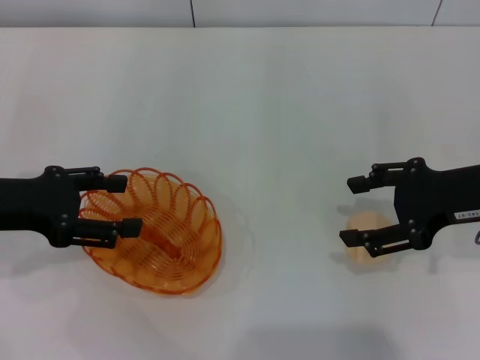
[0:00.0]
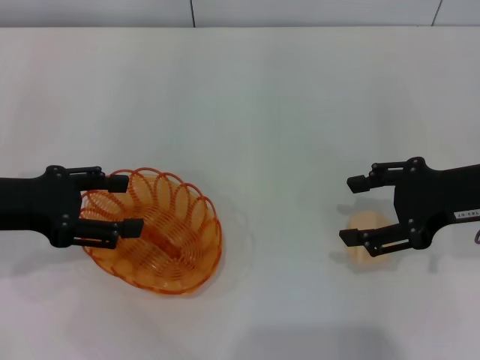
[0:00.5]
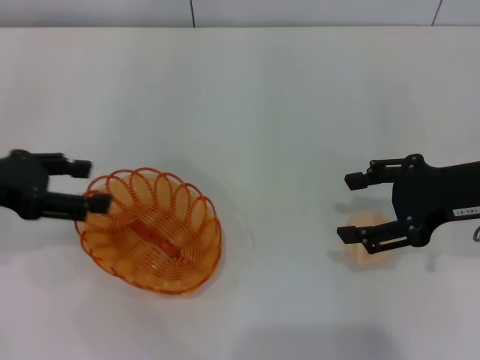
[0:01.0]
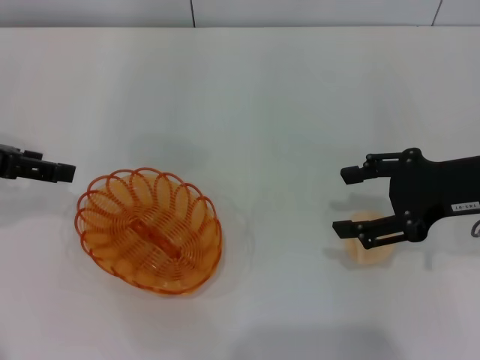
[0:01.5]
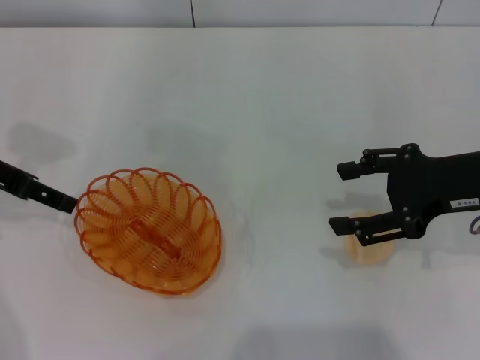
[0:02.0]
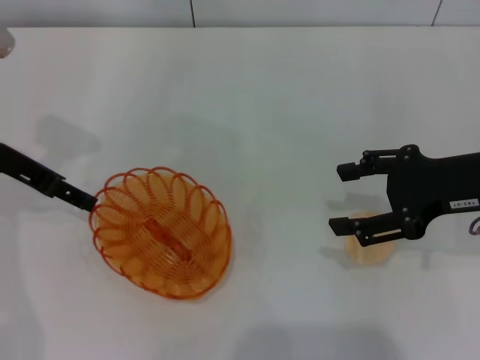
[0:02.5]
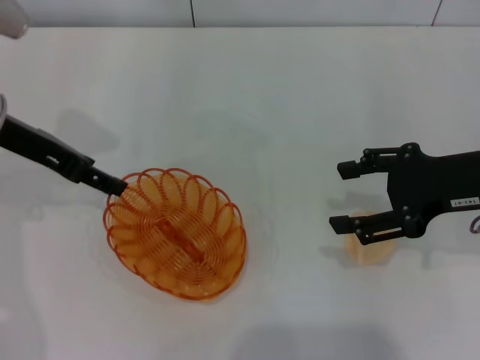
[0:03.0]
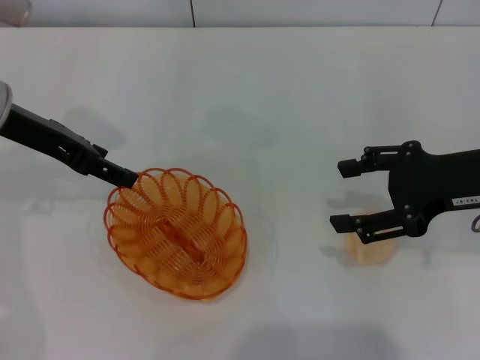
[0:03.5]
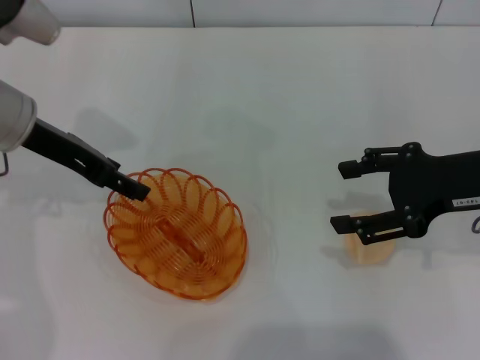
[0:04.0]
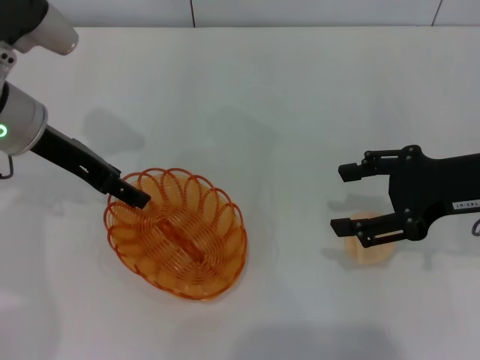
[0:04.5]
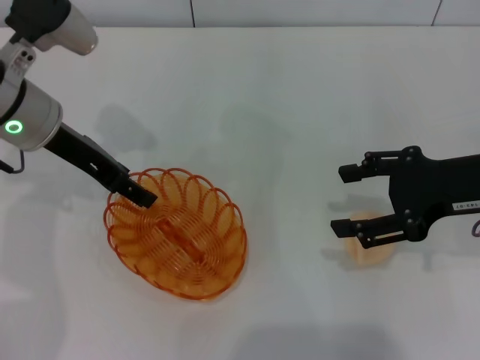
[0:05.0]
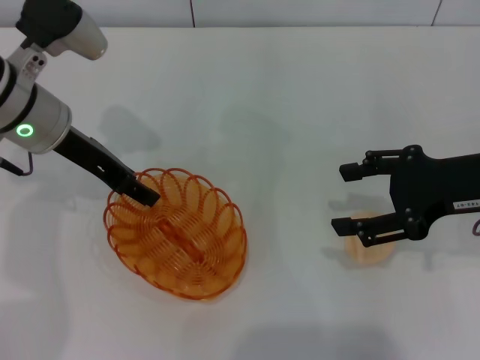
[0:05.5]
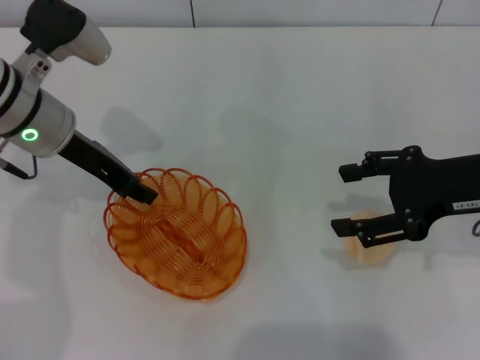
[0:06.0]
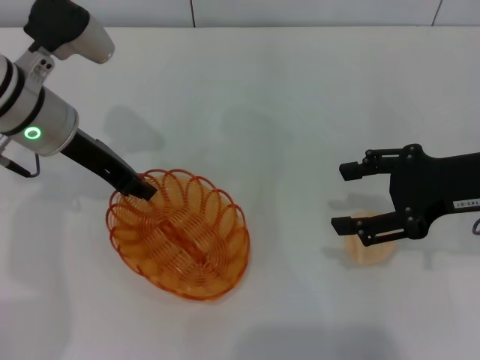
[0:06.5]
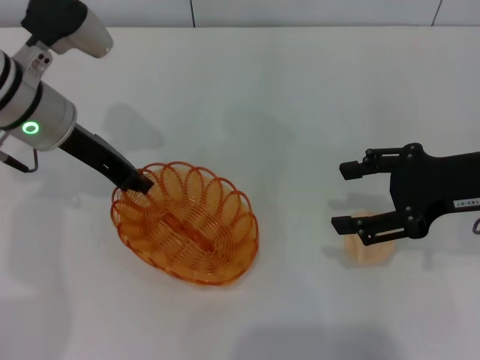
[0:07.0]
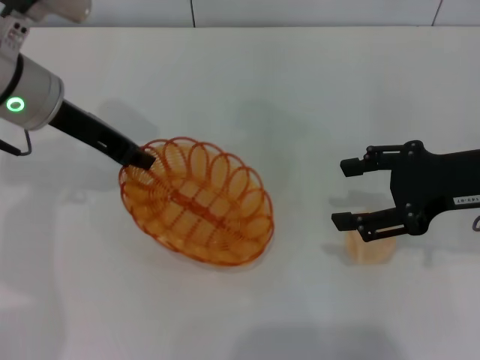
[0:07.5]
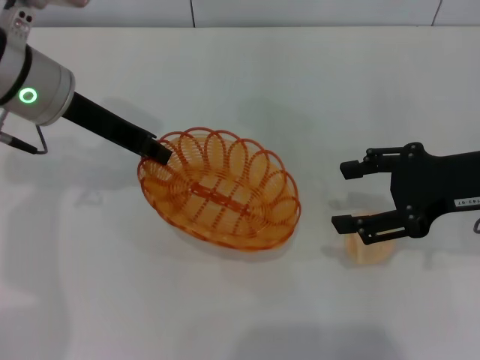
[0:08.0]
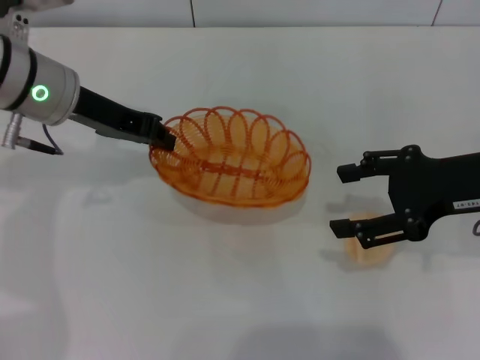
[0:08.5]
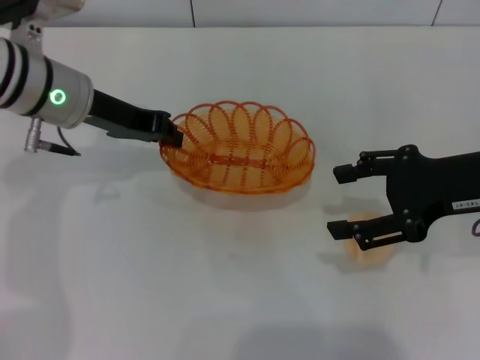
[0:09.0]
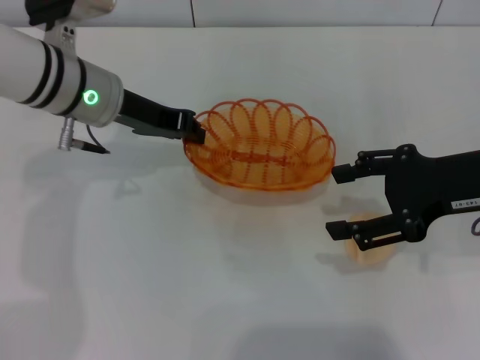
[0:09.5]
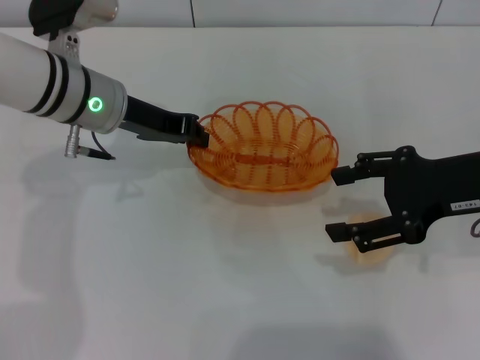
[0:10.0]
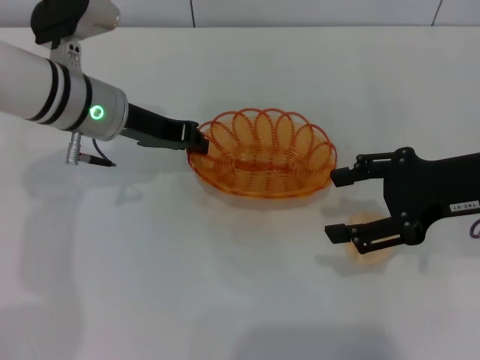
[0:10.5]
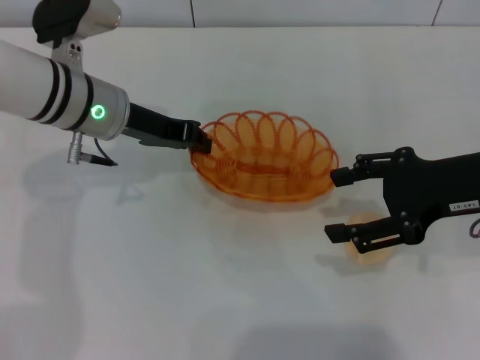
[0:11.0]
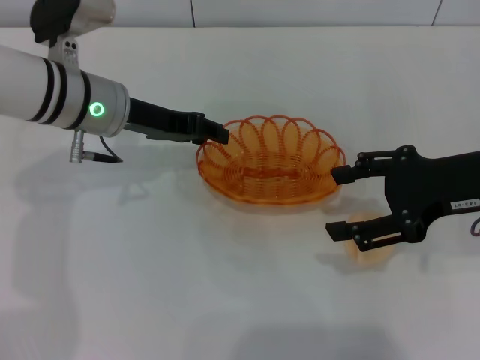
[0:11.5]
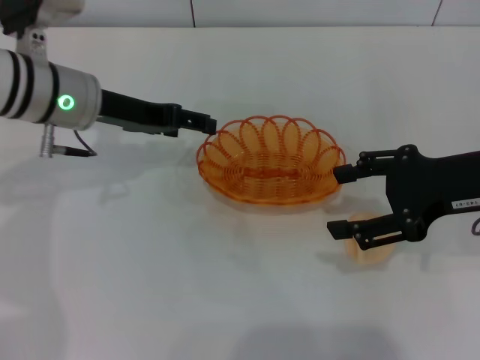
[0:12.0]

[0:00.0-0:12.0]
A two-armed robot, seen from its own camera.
Step, 0:00.0 to 0:06.0: Pick up the basket with the left gripper.
Step, 0:06.5 to 0:11.5: Place the basket in the center of view with the left gripper.
0:00.0 to 0:02.0: The left gripper moves forward, roughly 5 cm.
0:02.0 to 0:04.0: The left gripper goes about 5 cm to the right.
0:04.0 to 0:06.0: The left gripper closes its fingers.
0:06.0 to 0:08.0: The left gripper closes up.
0:08.0 to 0:10.0: The left gripper heads downward, covering some 5 cm.
0:10.0 to 0:12.0: The left gripper opens.

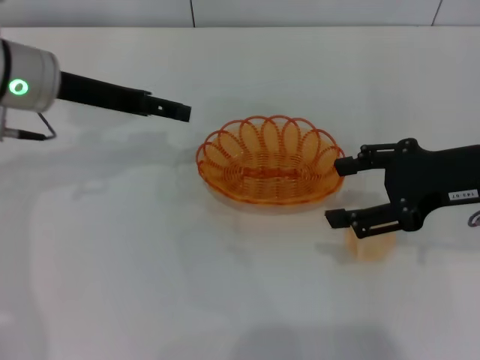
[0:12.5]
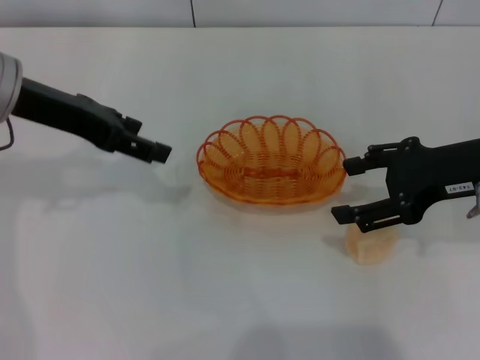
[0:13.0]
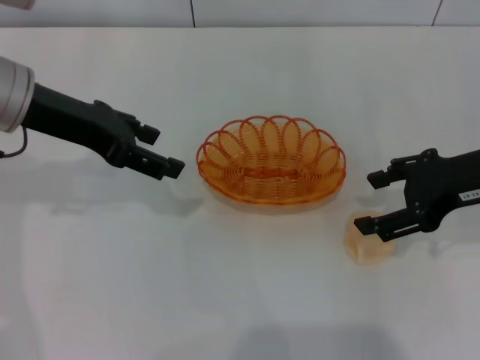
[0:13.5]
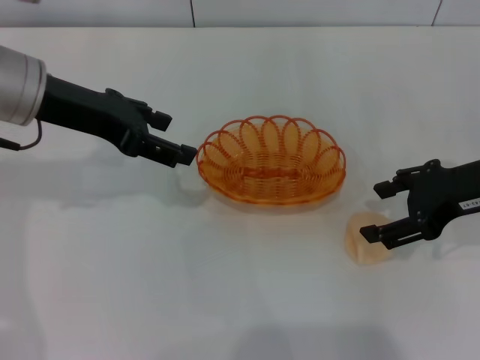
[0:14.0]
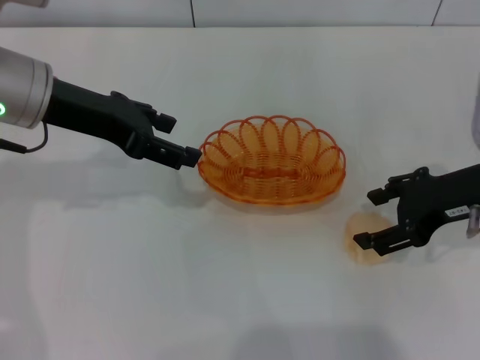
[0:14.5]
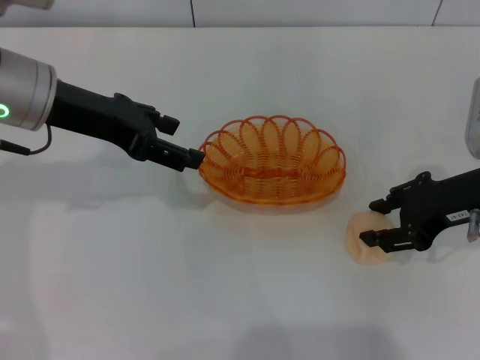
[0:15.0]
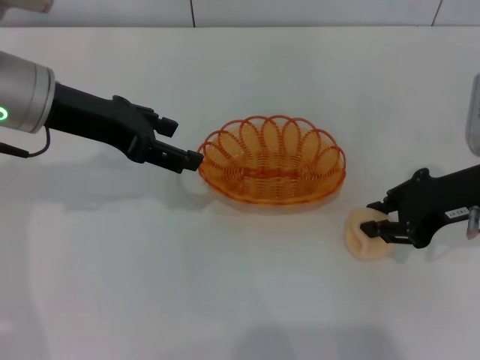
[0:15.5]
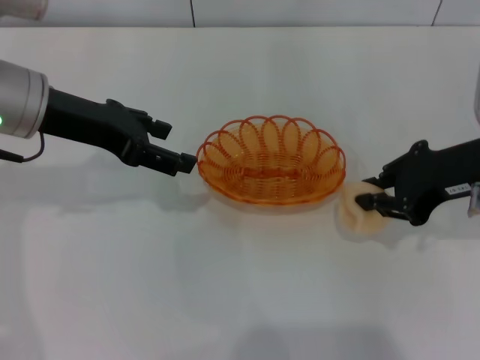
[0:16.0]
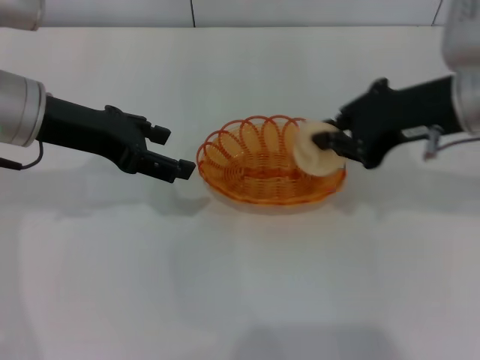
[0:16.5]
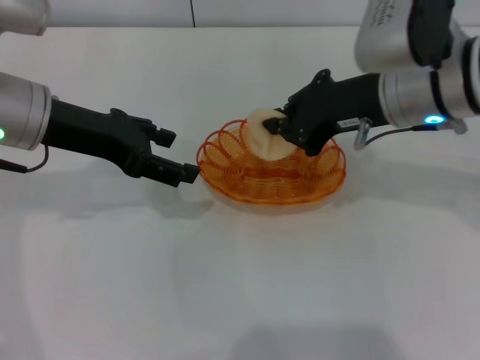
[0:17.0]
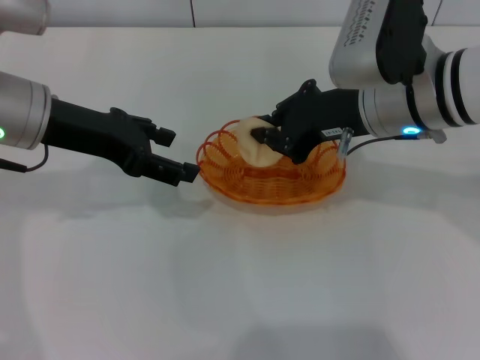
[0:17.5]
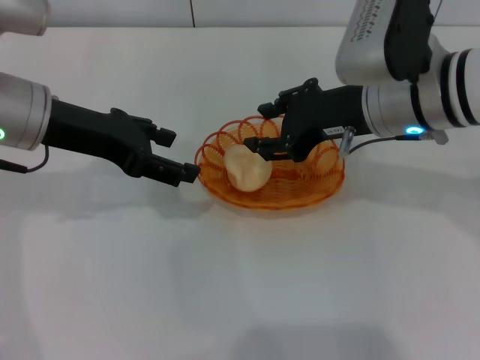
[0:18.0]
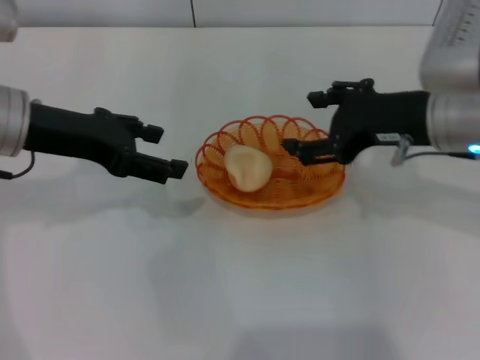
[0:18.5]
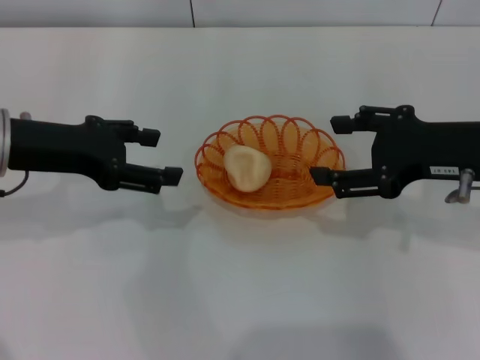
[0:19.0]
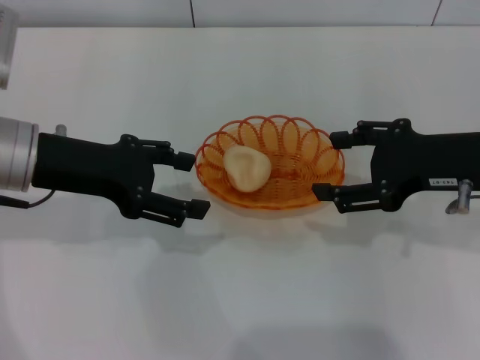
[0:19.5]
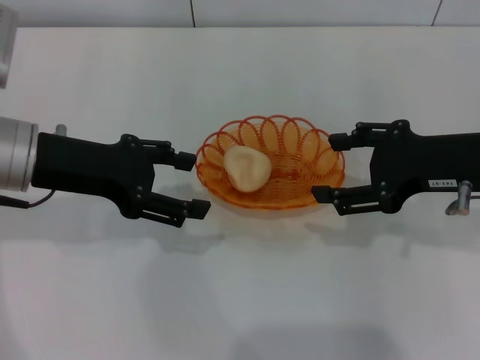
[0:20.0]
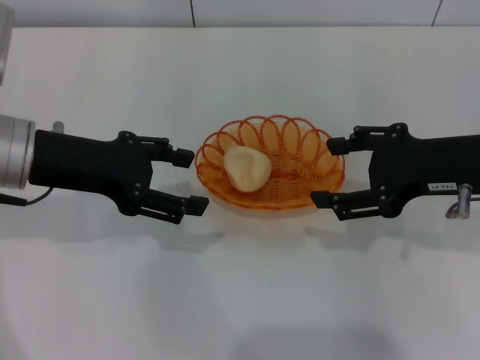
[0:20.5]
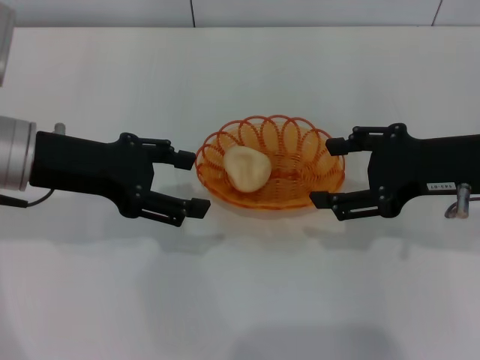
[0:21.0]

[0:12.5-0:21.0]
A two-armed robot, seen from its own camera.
Step, 0:12.5 to 0:16.0: Pick up the egg yolk pastry with the right gripper.
Step, 0:16.5 to 0:19.5: Place the egg yolk pastry into the basket with the right gripper.
0:14.5 to 0:16.5: The right gripper goes some 10 cm upward and to the left, and closes up.
0:16.5 to 0:19.0: The right gripper ends up approximately 5 cm from where it was, and opens its fingers.
0:19.0 to 0:21.0: The grippers move only a little.

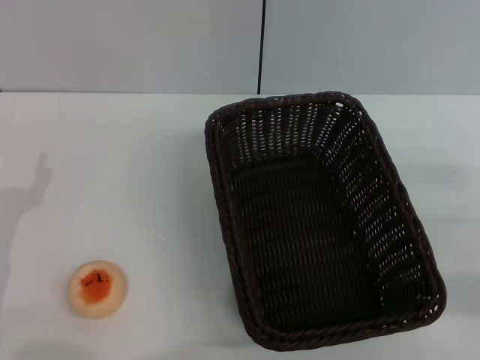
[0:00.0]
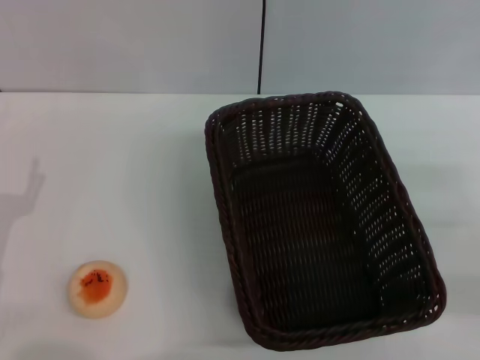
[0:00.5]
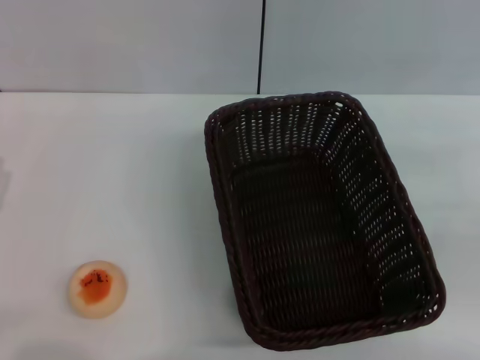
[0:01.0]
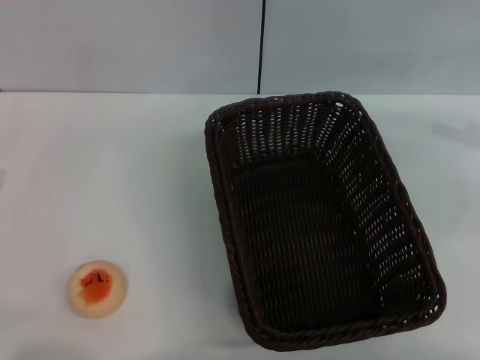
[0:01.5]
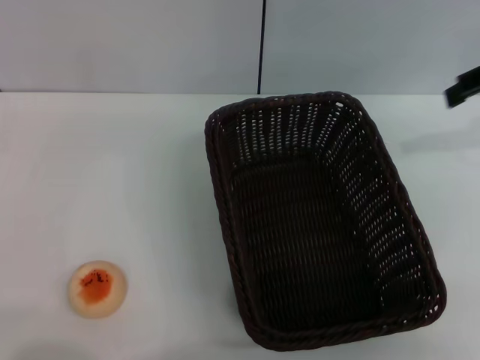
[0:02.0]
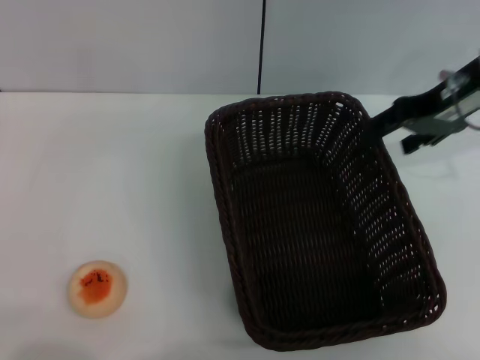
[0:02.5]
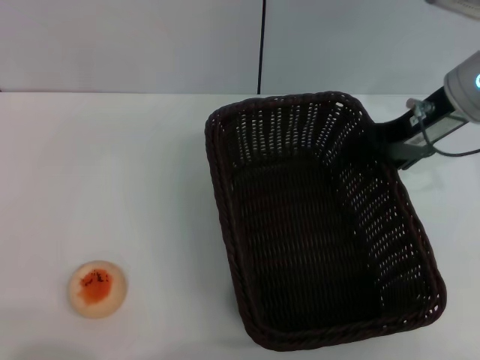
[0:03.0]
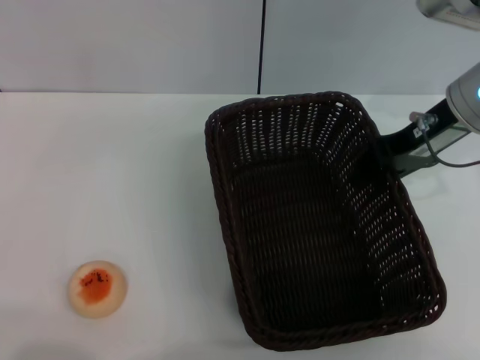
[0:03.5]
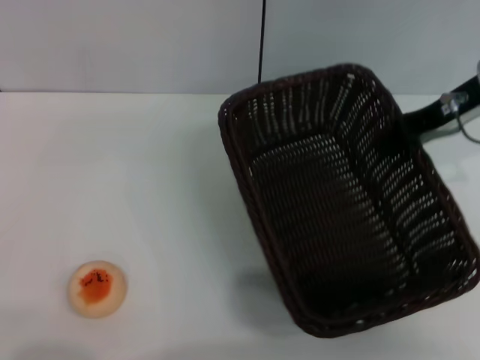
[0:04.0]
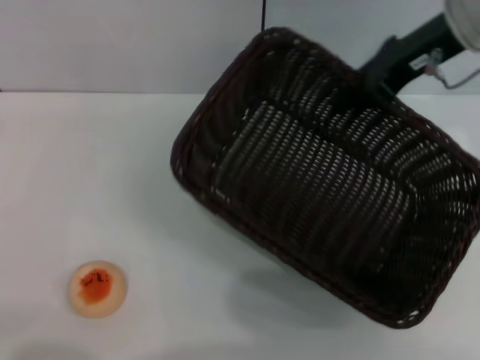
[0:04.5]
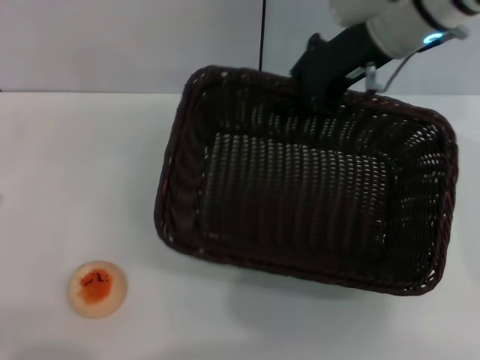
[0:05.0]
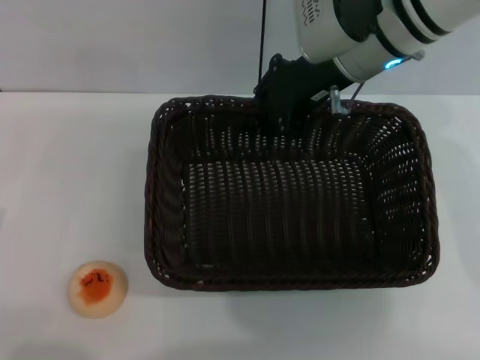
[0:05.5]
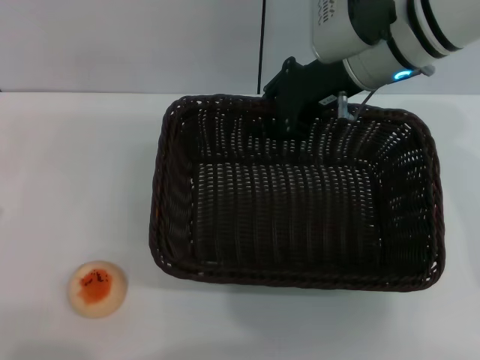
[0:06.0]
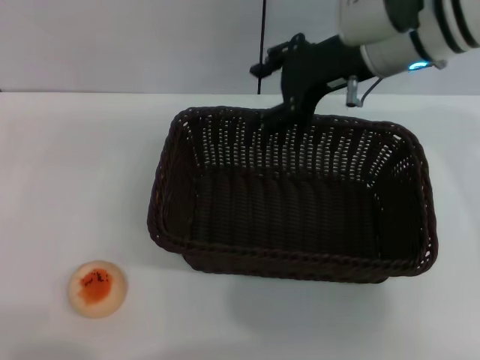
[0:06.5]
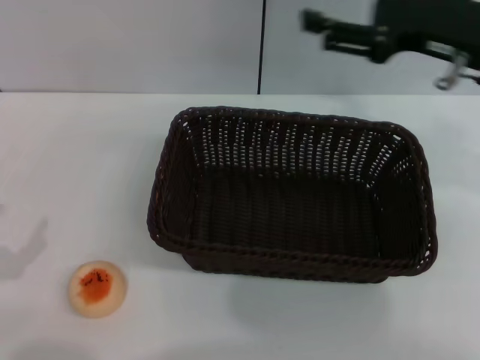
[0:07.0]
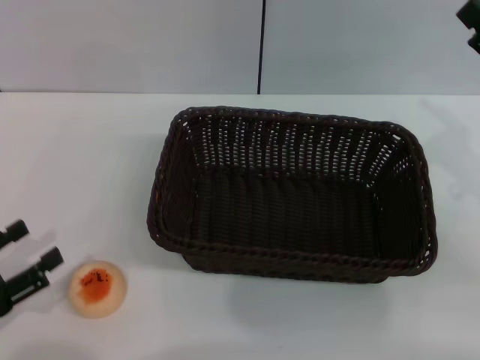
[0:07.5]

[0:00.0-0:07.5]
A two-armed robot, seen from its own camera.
Step, 0:00.0 to 0:06.5: Move the basket to the center of view with the right gripper.
0:00.0 to 0:02.0: The right gripper heads upward and forward, covering roughly 25 cm.
0:02.0 to 0:04.0: The right gripper is displaced downward and to the left by about 10 cm, and closes its fingers.
0:04.0 to 0:05.5: The left gripper ends up approximately 5 cm from where it was, while the right gripper is displaced to the left by some 15 cm.
0:05.5 to 0:07.5: The right gripper heads to the right and backward, covering about 25 cm, and opens.
